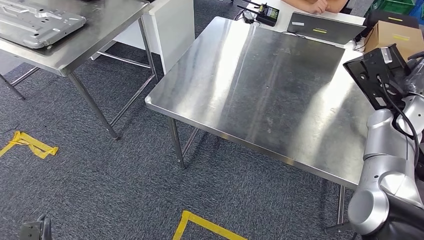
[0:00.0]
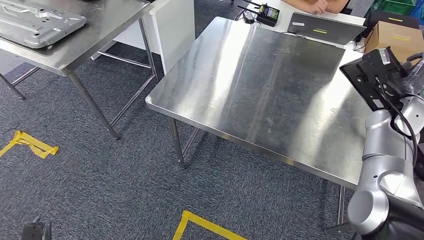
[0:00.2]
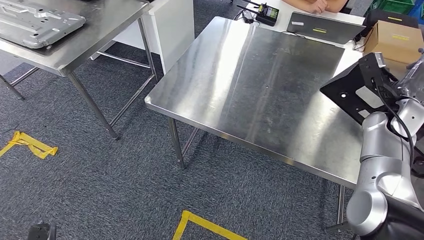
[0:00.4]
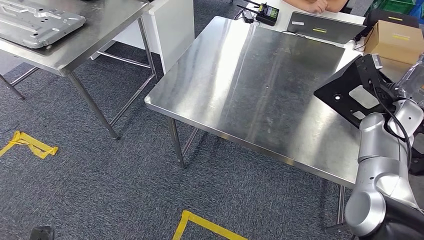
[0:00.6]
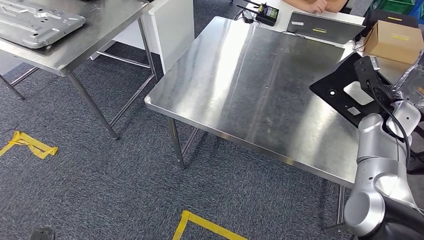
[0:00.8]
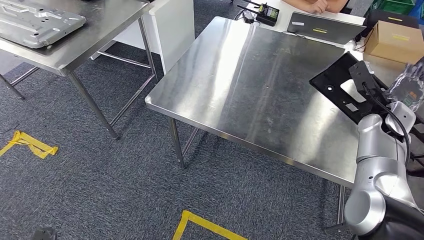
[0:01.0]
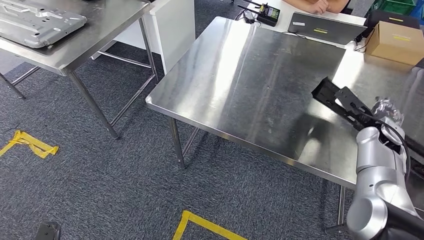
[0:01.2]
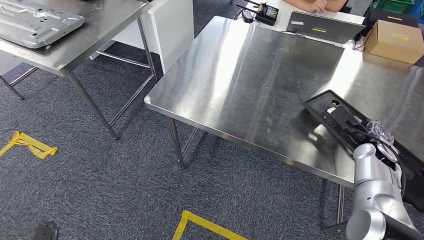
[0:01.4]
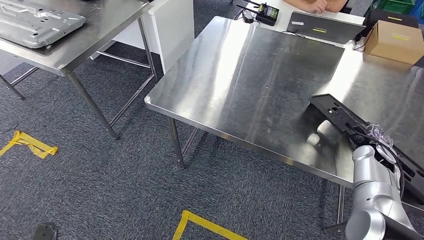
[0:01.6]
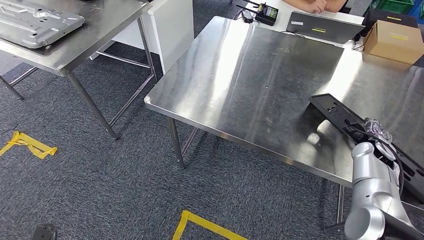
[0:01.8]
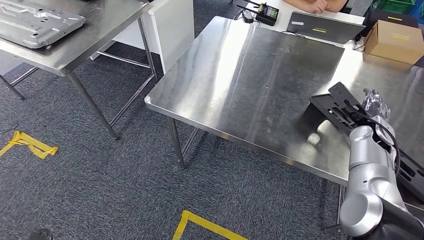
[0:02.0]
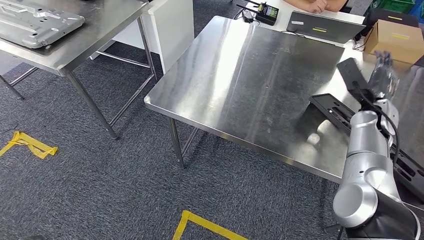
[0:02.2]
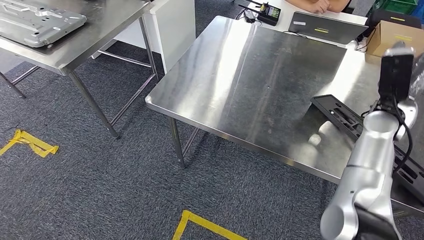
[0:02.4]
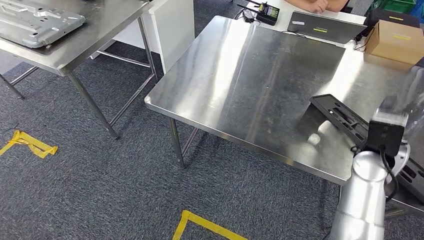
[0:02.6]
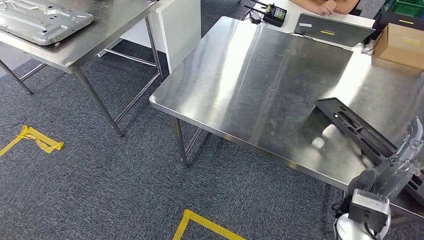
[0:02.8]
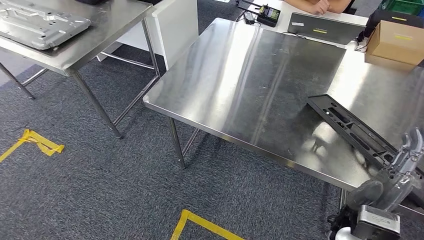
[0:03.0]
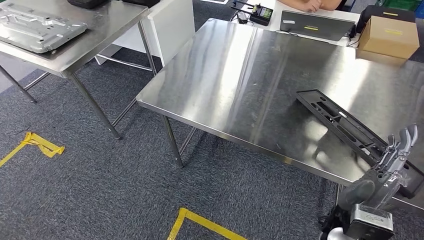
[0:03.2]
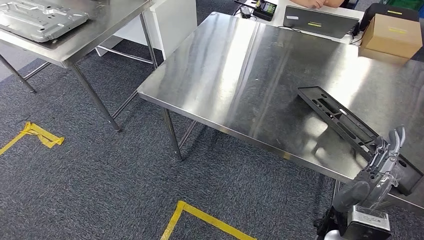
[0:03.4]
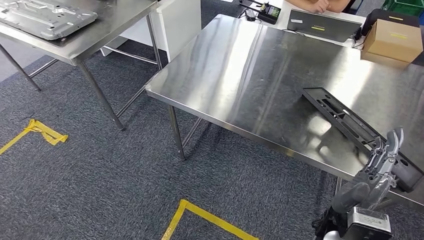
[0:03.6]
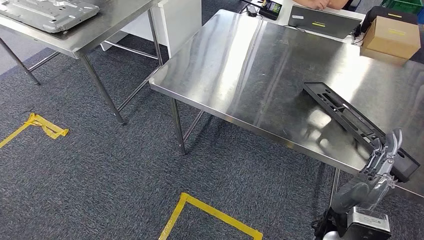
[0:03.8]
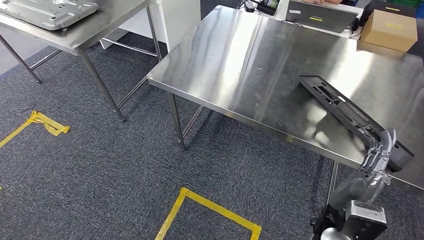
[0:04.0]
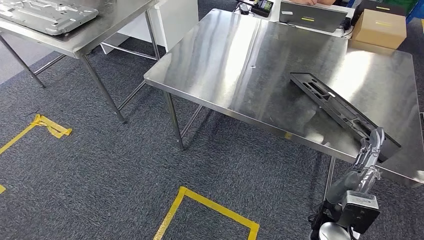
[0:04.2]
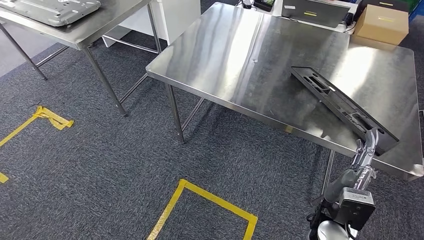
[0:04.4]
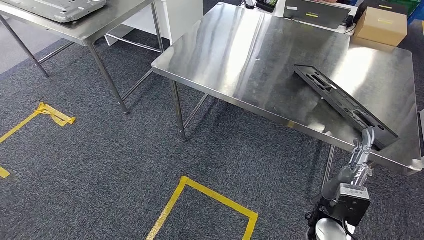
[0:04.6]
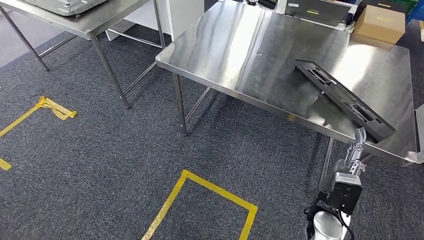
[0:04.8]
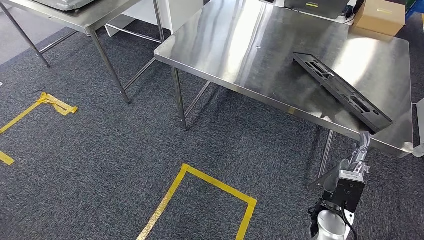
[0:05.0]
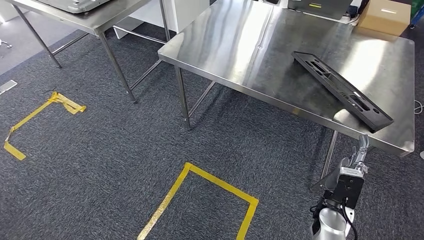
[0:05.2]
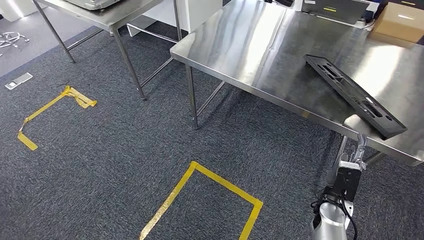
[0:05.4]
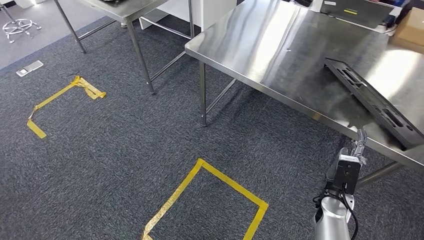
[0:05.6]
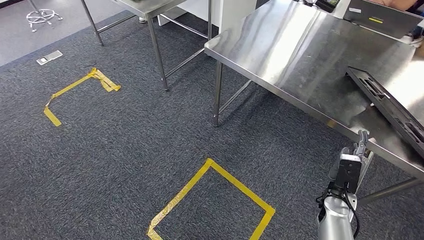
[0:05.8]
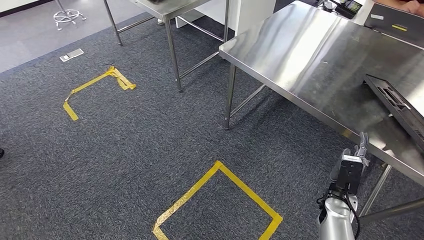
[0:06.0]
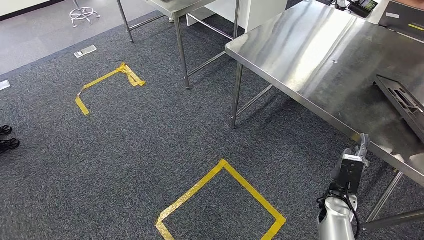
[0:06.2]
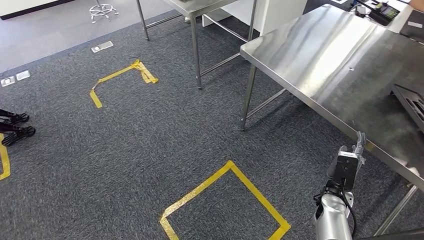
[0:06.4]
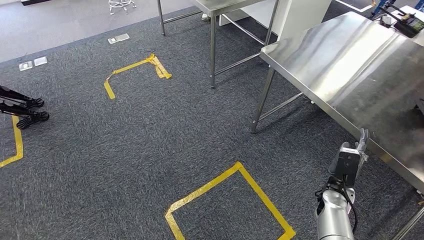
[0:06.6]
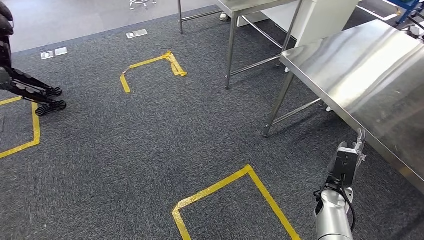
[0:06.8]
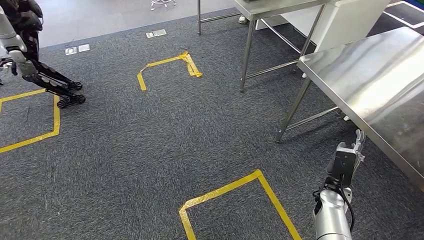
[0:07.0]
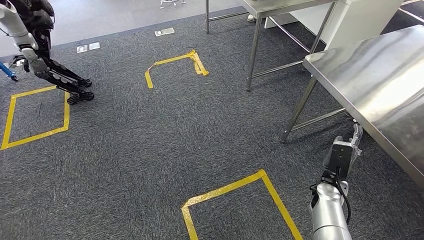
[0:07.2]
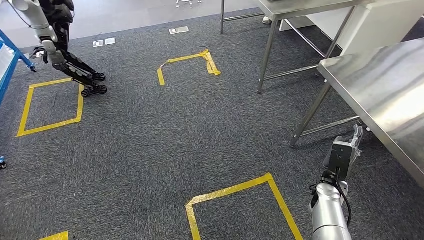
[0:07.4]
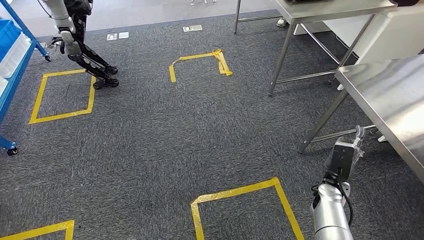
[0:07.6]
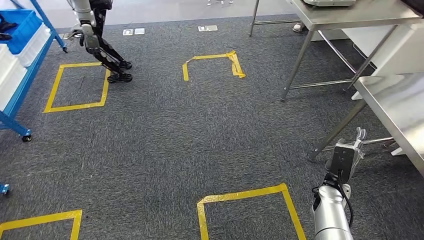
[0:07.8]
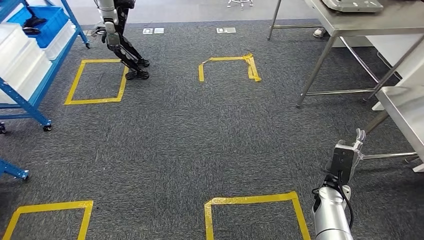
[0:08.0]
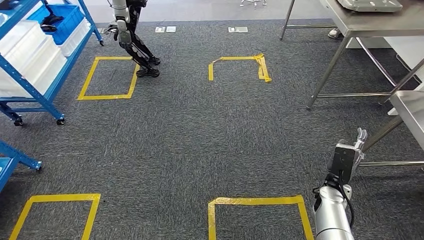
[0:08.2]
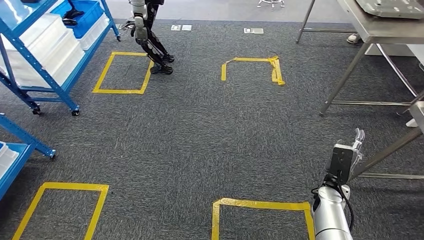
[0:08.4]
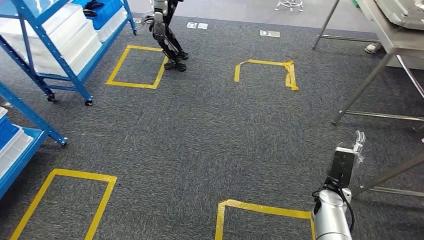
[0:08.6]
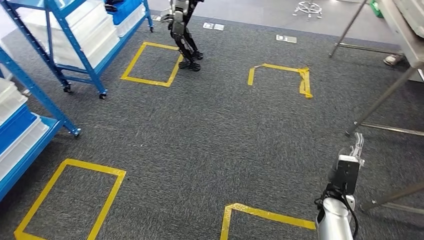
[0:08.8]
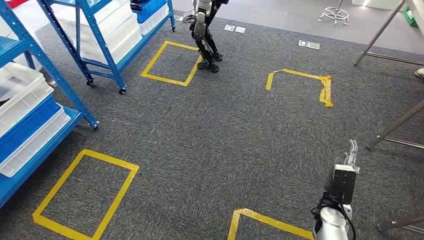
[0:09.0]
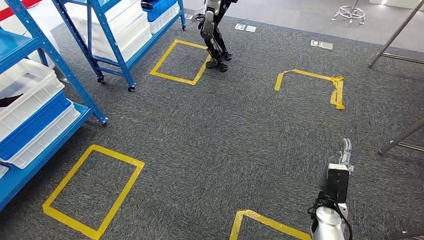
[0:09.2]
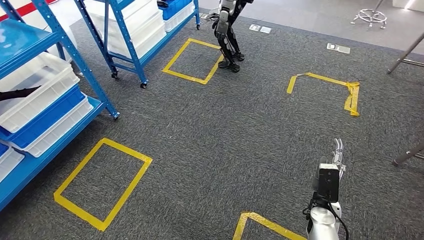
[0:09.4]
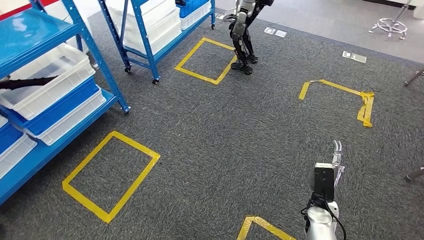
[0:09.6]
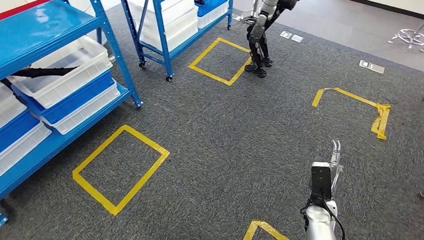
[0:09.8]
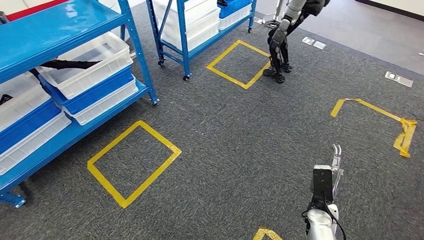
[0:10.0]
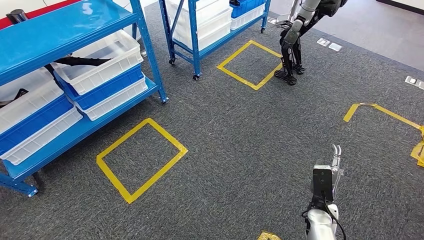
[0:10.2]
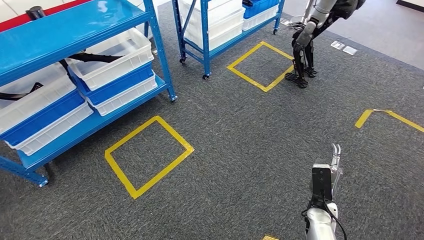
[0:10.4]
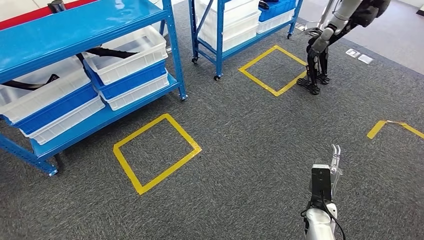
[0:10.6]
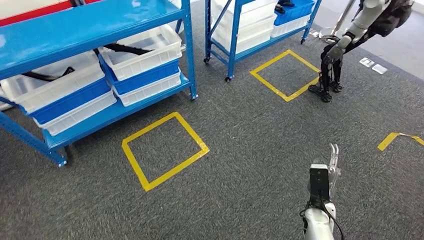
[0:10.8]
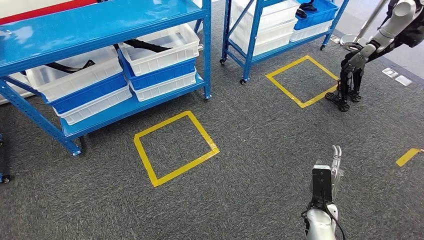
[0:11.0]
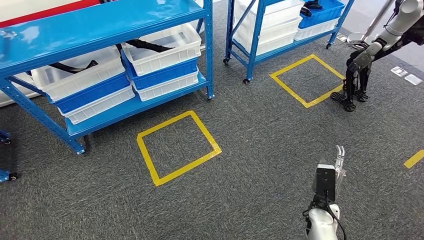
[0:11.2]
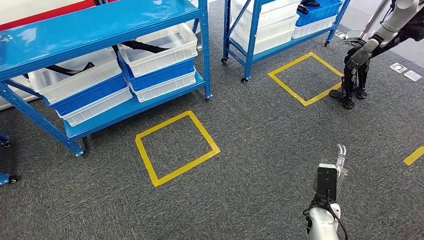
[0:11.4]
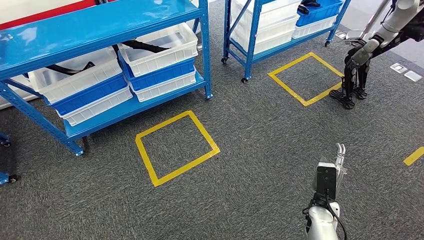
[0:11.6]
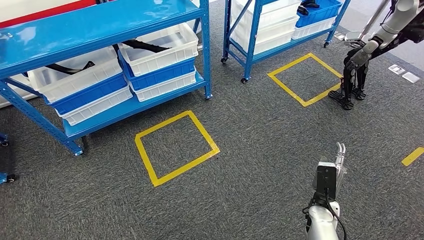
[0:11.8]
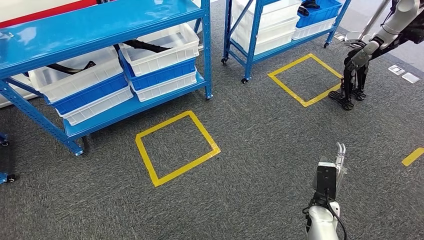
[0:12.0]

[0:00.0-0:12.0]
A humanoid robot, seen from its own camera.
Step, 0:00.0 to 0:06.8: Insert the large material into the corresponding slot on the workbench.
0:00.0 to 0:01.6: The right hand goes approximately 15 cm downward and backward.

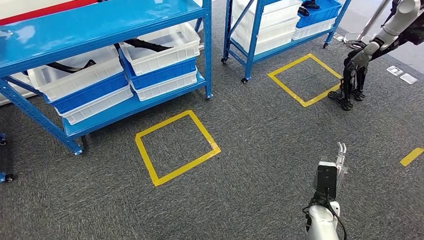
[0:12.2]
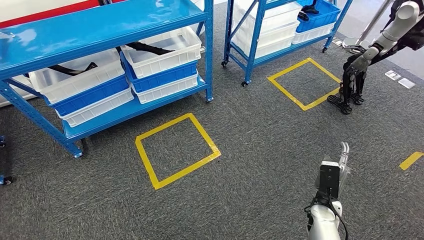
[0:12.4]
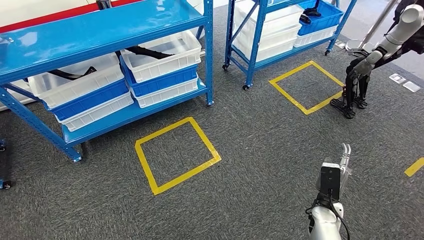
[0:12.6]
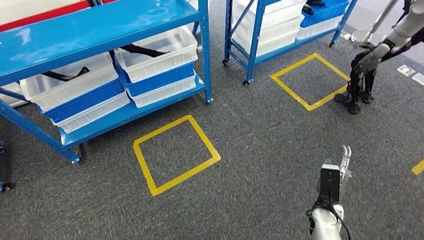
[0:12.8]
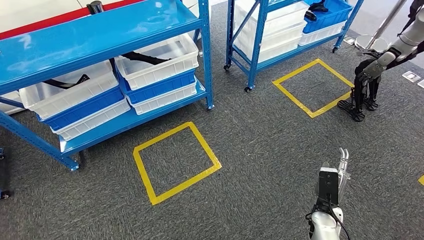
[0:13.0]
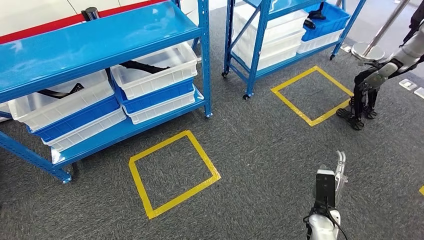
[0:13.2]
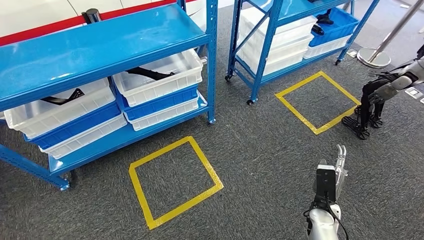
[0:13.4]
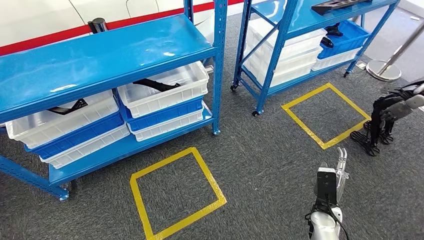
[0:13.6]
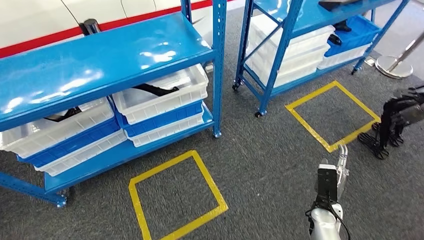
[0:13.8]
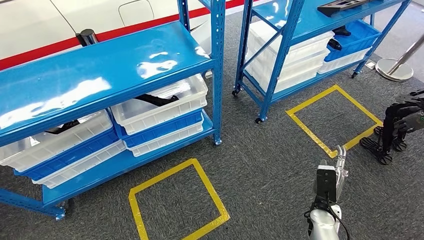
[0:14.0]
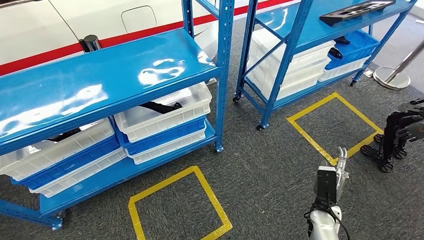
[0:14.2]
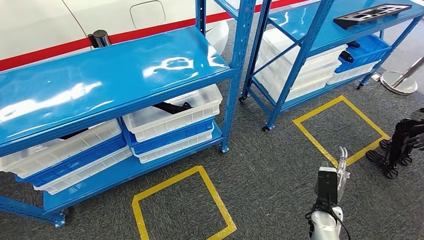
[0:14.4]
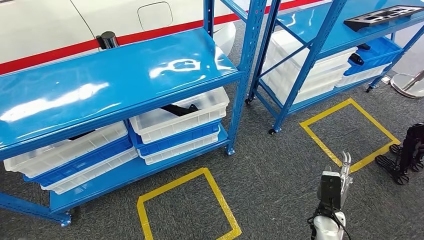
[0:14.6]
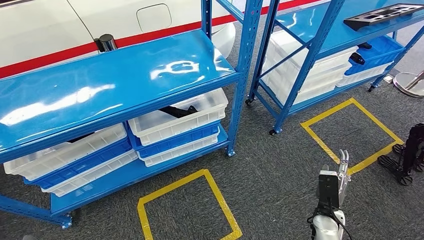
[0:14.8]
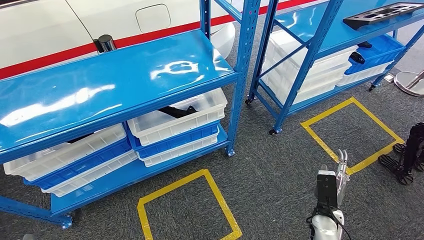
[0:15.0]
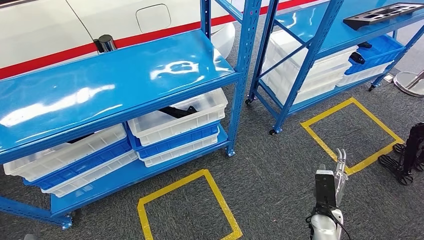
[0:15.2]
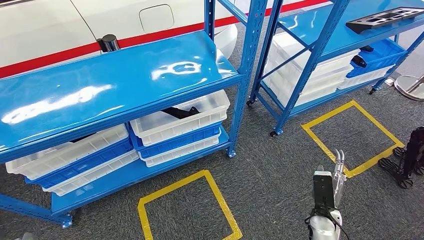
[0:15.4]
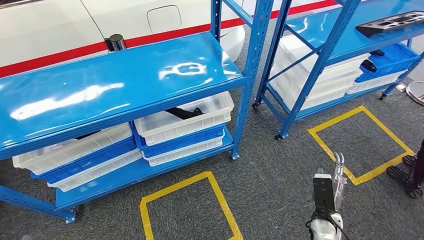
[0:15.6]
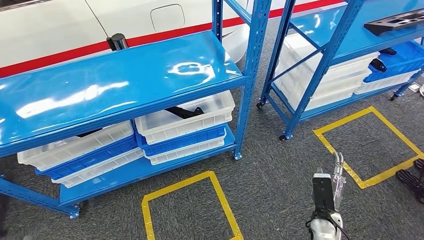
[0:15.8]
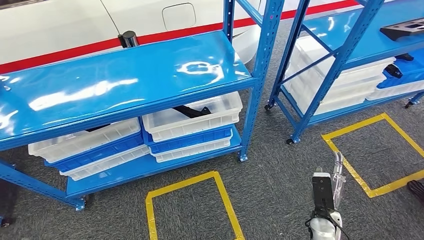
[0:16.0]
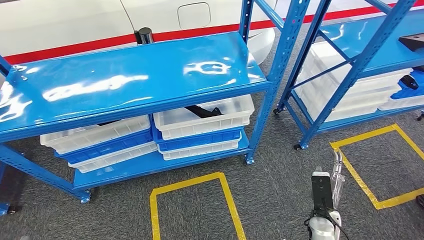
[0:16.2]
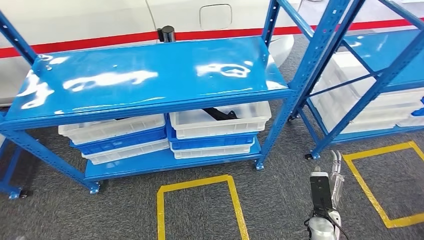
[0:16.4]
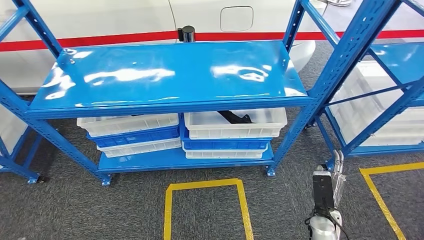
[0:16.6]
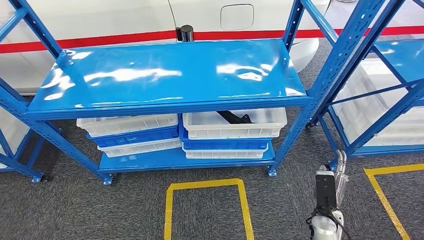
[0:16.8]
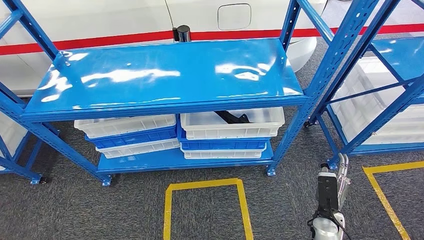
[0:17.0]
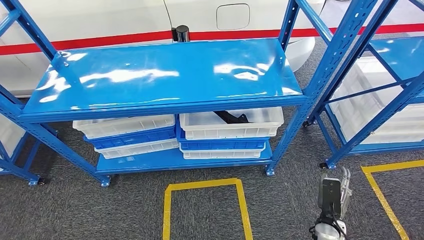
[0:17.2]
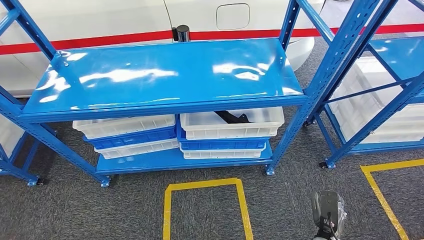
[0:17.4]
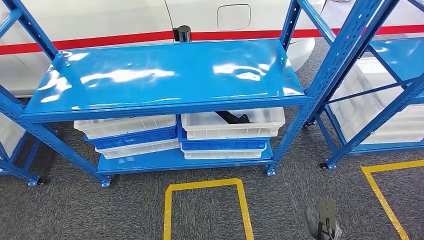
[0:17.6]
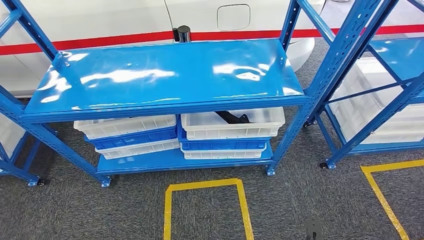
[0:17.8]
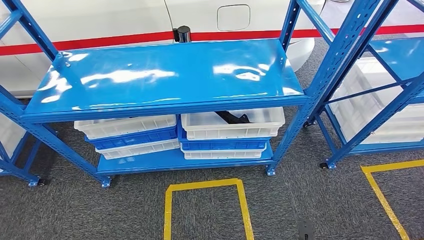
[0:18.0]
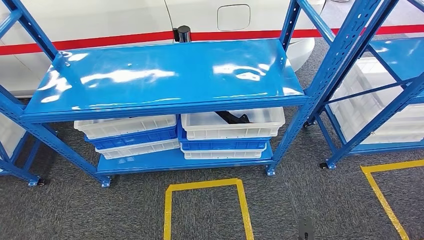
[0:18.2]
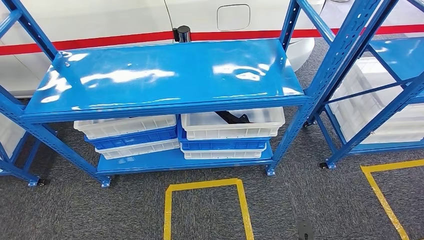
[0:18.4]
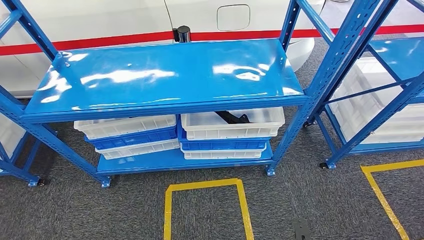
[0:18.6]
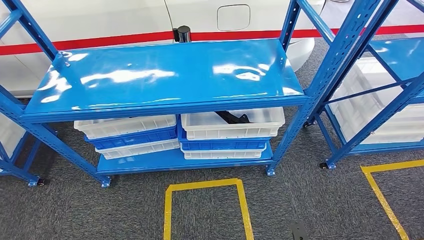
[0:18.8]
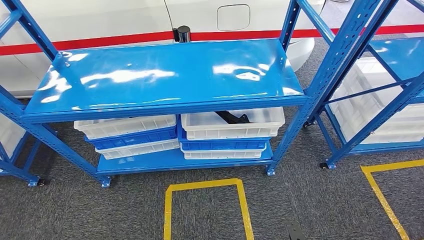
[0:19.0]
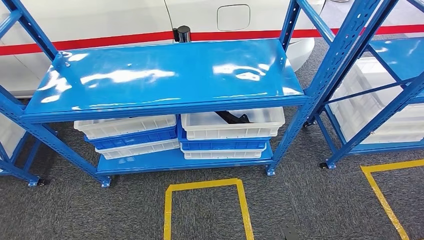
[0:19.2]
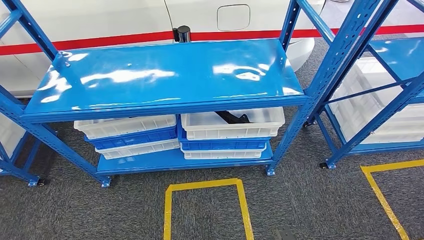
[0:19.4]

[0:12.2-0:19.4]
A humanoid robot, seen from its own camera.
Step, 0:12.2 to 0:19.4: Move to the initial position of the shelf.
